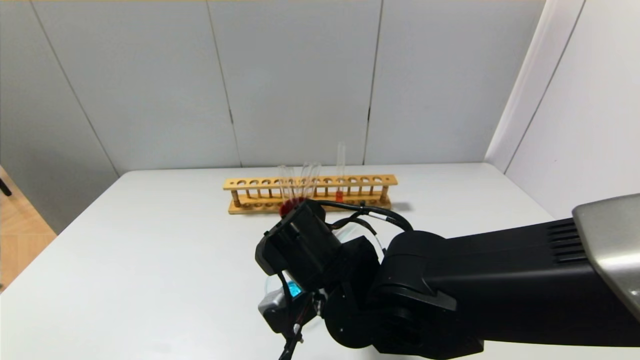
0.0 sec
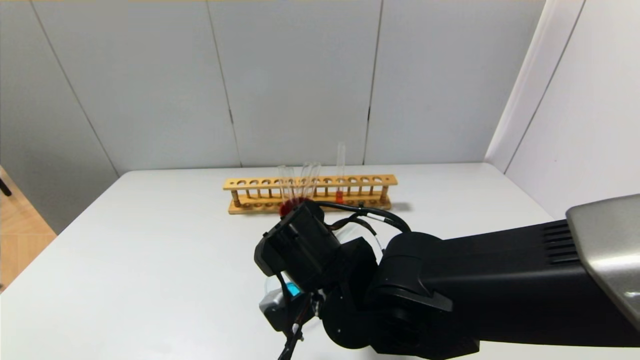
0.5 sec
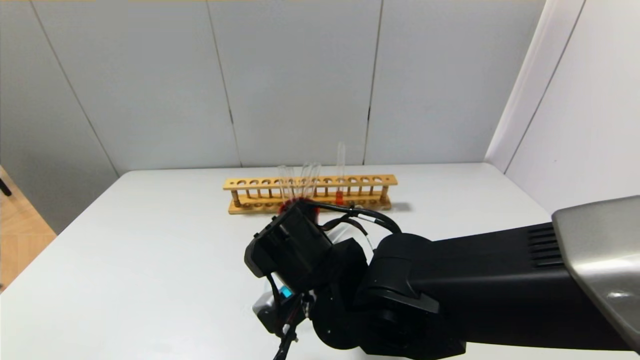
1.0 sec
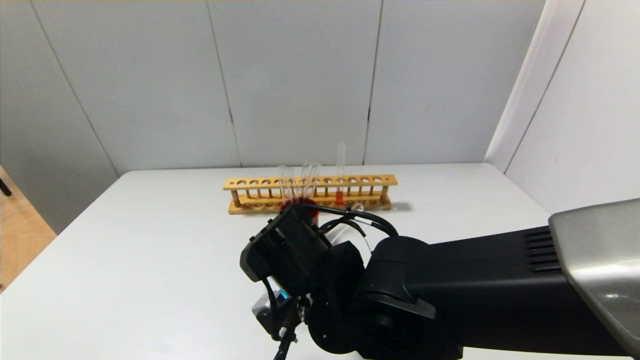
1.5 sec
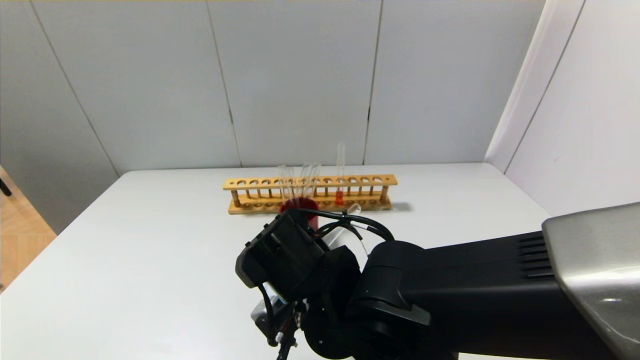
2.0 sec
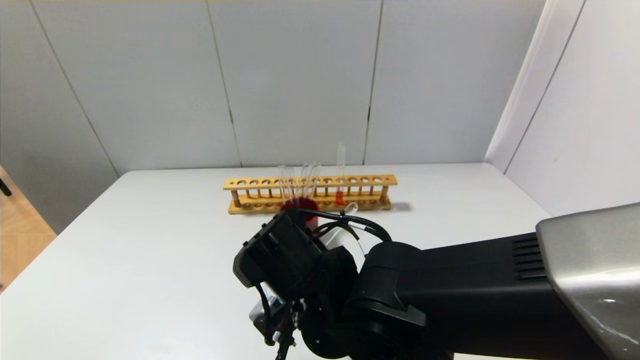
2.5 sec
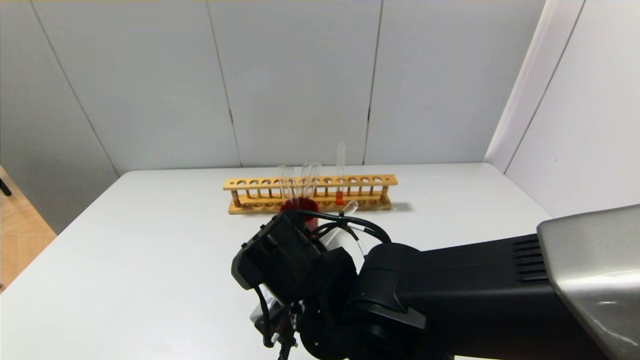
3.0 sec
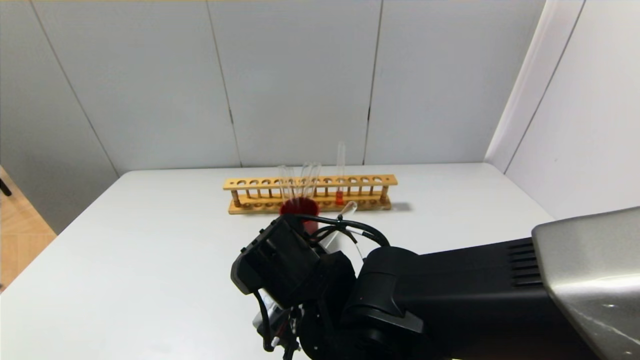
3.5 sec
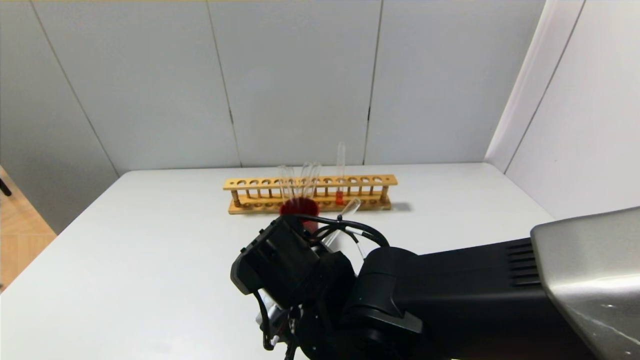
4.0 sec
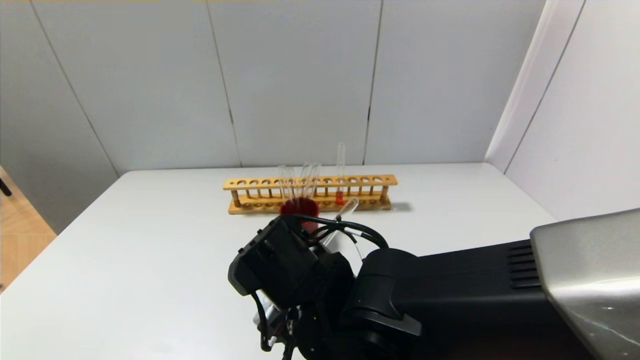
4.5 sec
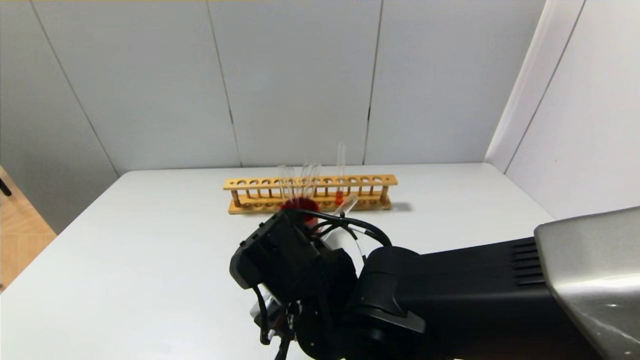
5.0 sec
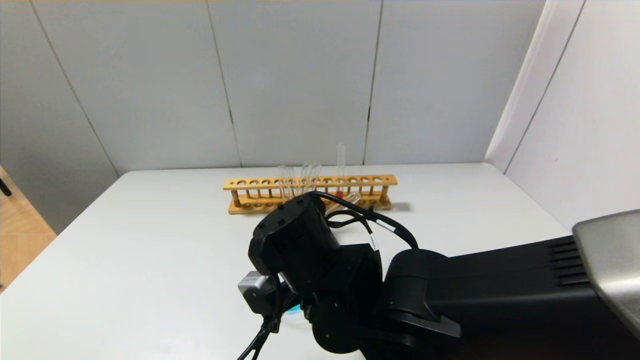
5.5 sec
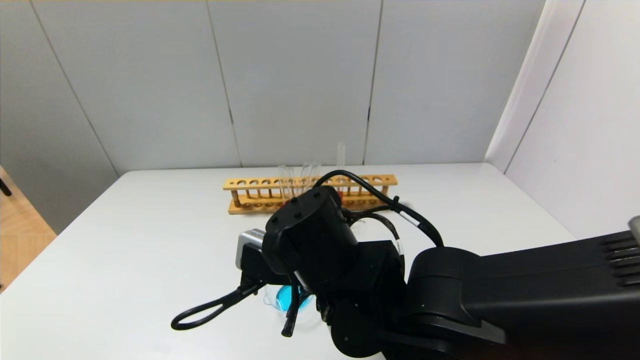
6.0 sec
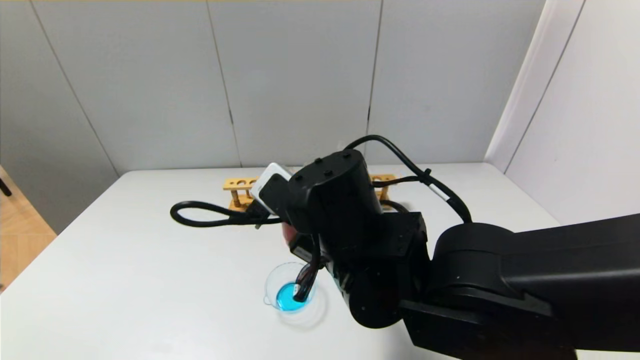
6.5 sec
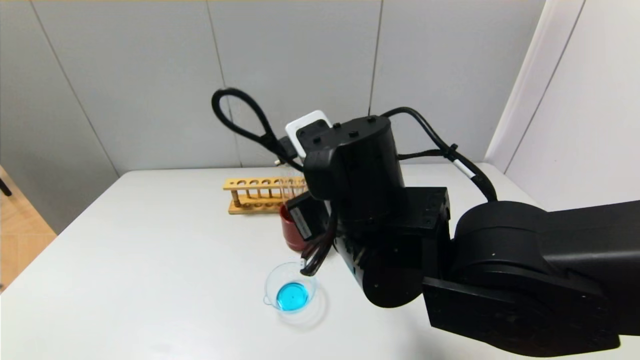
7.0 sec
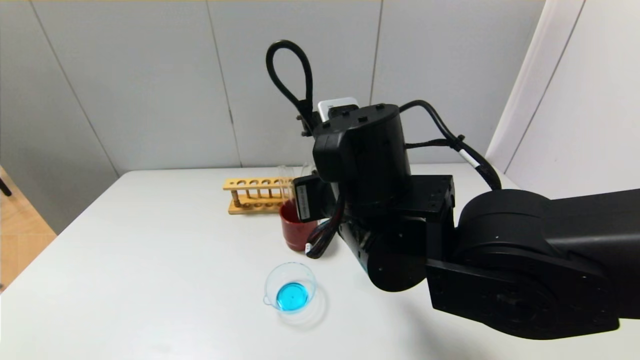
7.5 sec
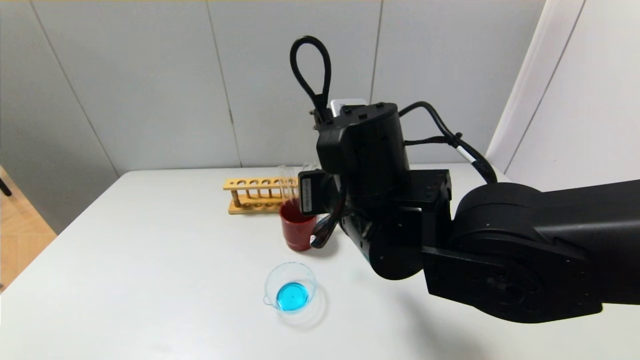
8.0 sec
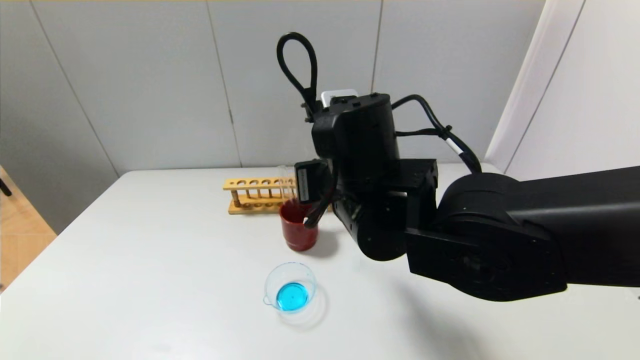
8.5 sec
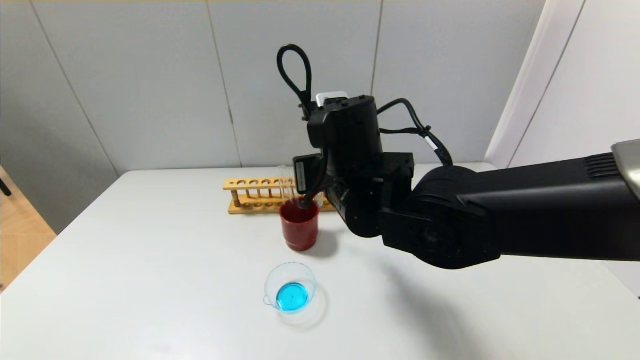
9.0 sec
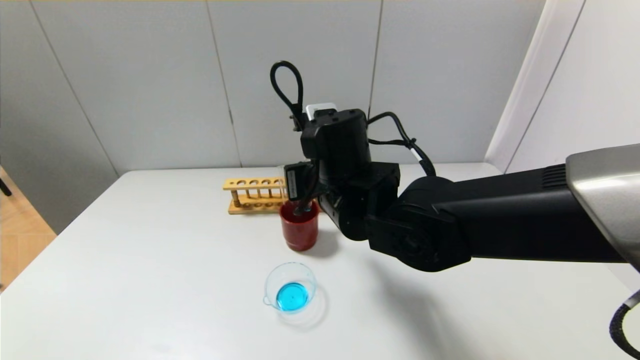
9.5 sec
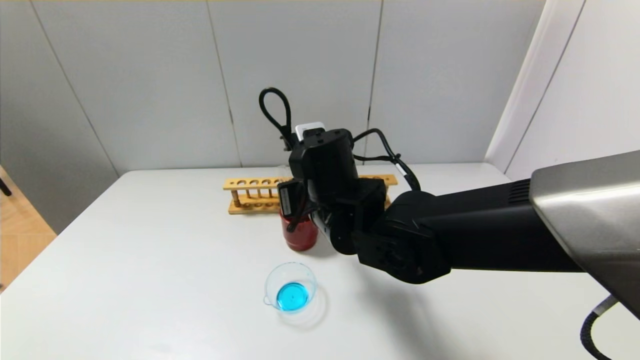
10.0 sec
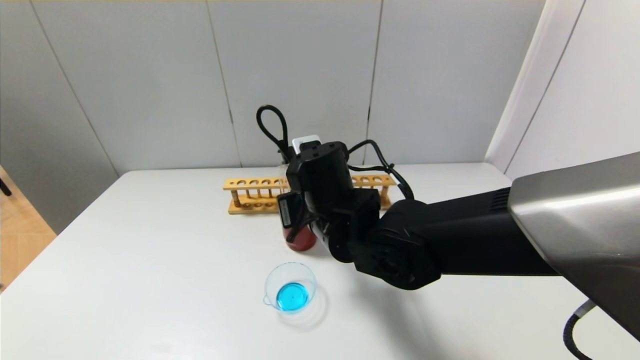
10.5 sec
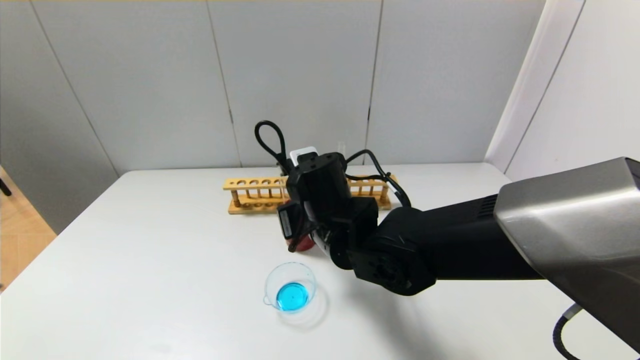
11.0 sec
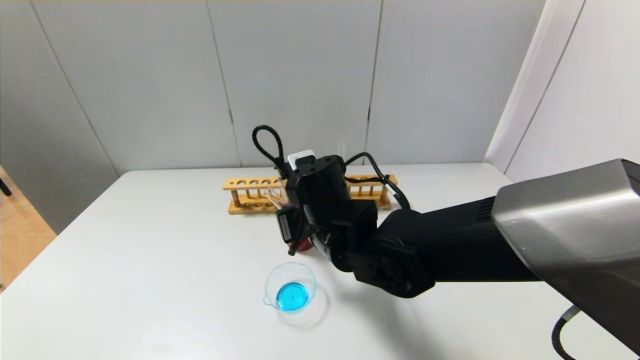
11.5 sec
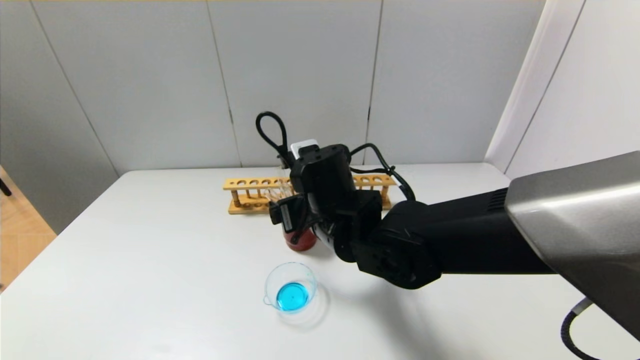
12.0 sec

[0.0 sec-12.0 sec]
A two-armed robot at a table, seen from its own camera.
Step, 0.0 sec to 5.5 sec: Pour the blue reagent into the graduated cylinder with the right gripper.
Step, 6.0 sec to 11.5 sec: Place the test tube into the brown cup with the right gripper.
0.0 sec to 4.0 sec: There are only small adjustments of the grippers.
6.0 sec to 8.0 sec: The right gripper goes about 5 cm upward.
8.0 sec to 10.0 sec: The right gripper travels forward by approximately 5 cm.
10.0 sec to 12.0 sec: The right gripper opens its fingers.

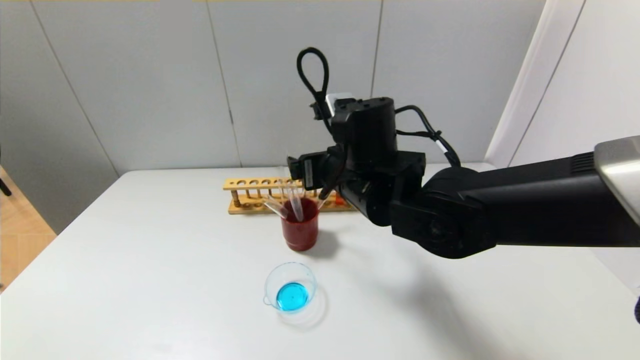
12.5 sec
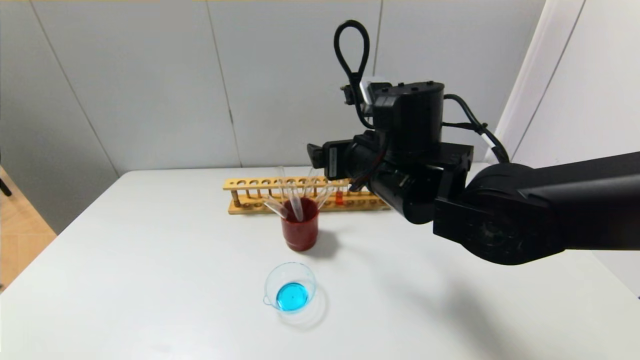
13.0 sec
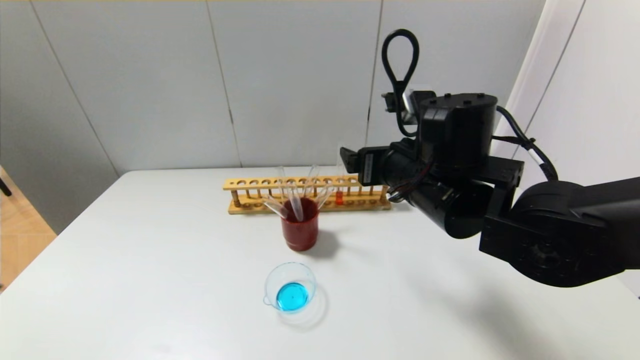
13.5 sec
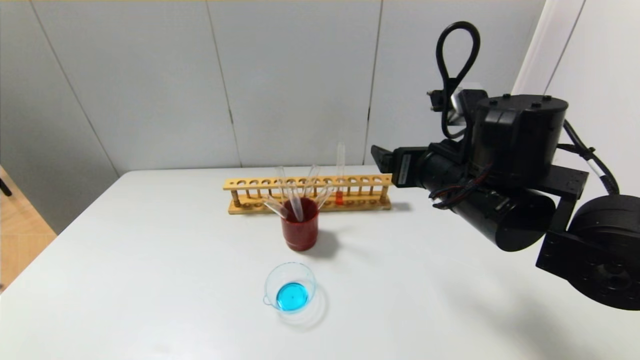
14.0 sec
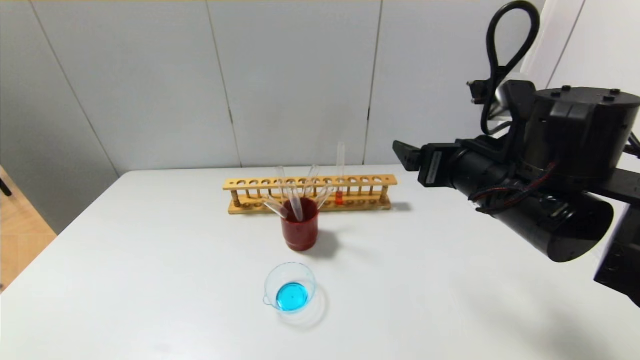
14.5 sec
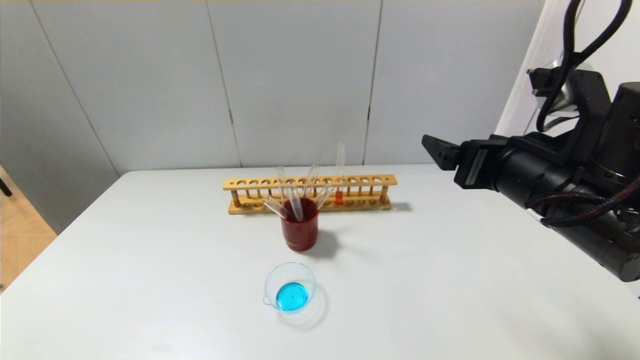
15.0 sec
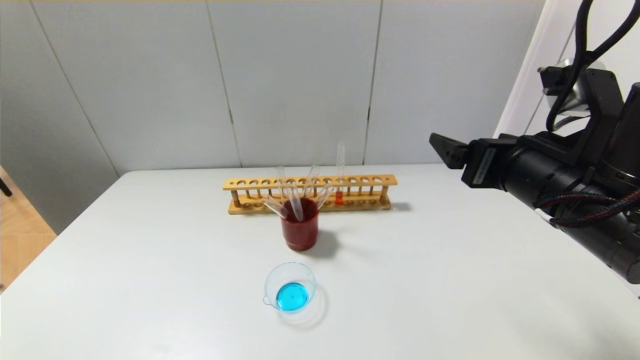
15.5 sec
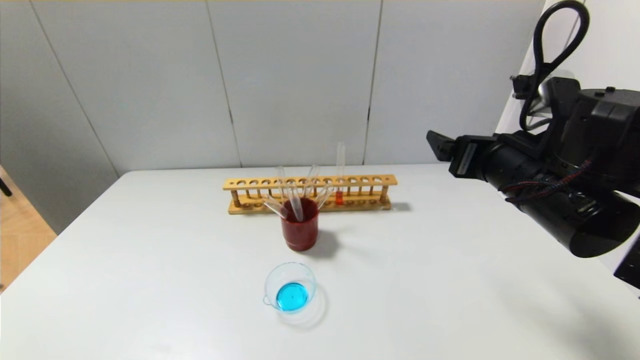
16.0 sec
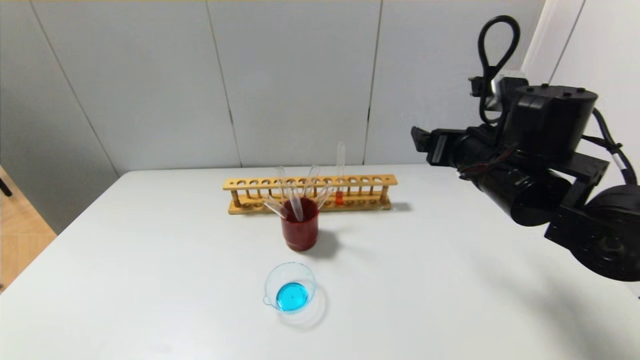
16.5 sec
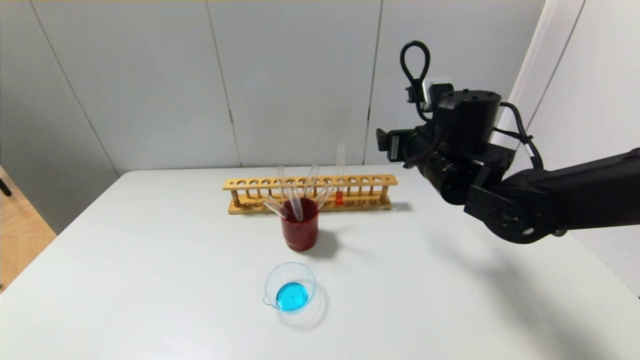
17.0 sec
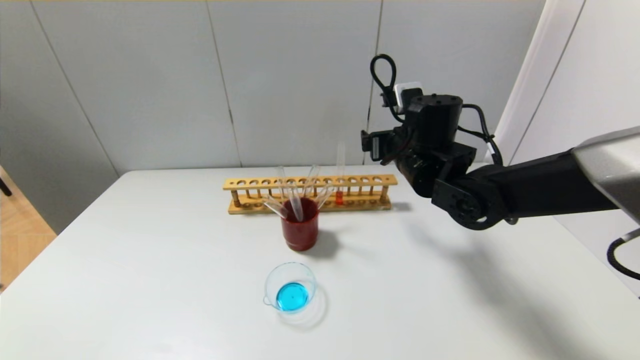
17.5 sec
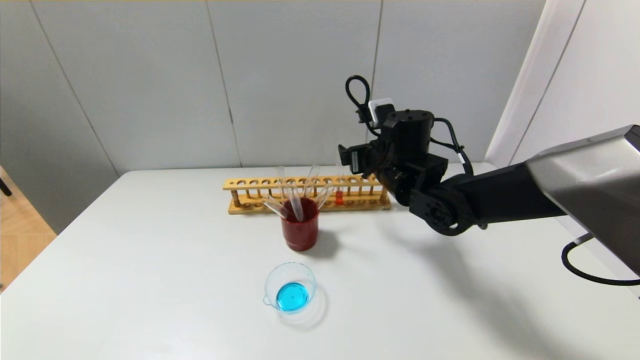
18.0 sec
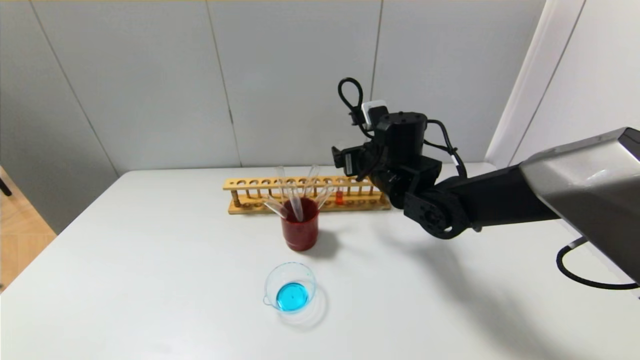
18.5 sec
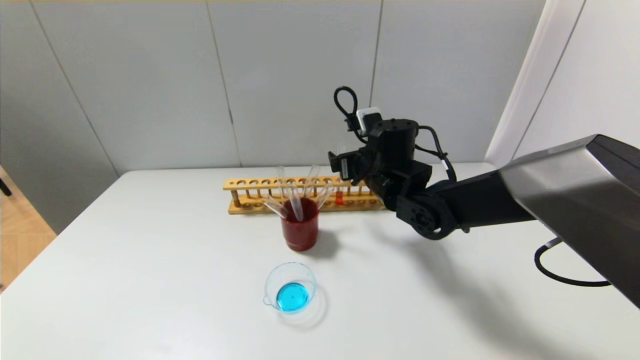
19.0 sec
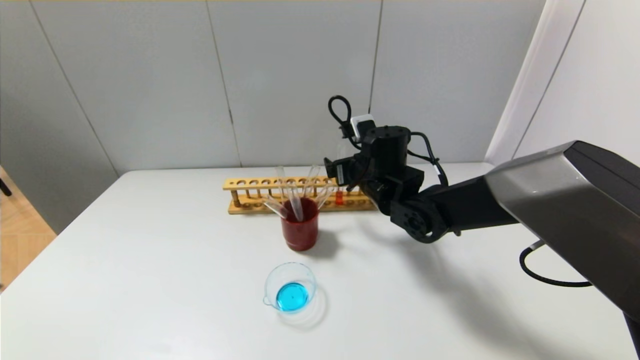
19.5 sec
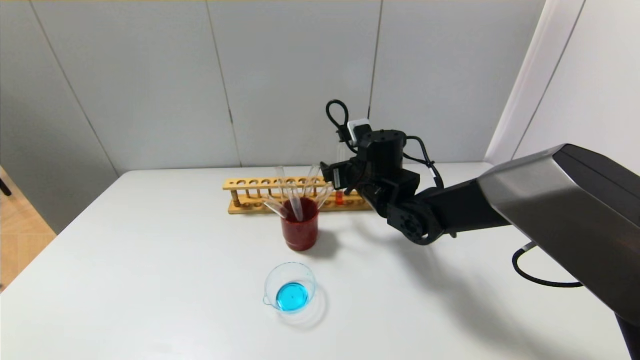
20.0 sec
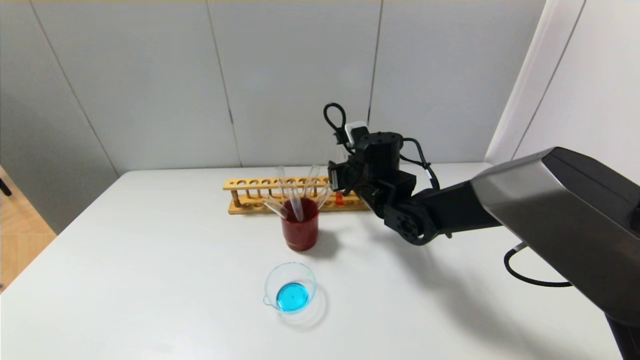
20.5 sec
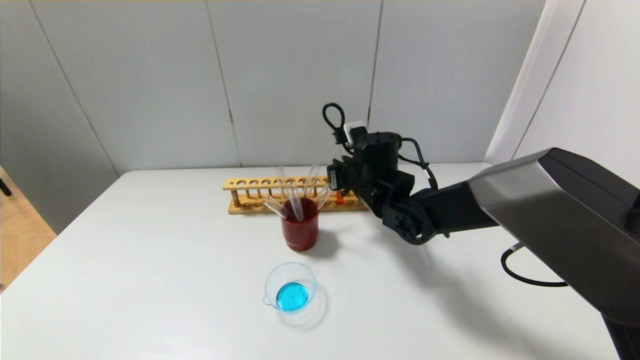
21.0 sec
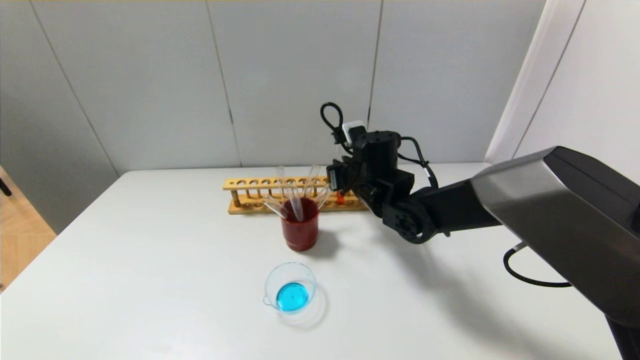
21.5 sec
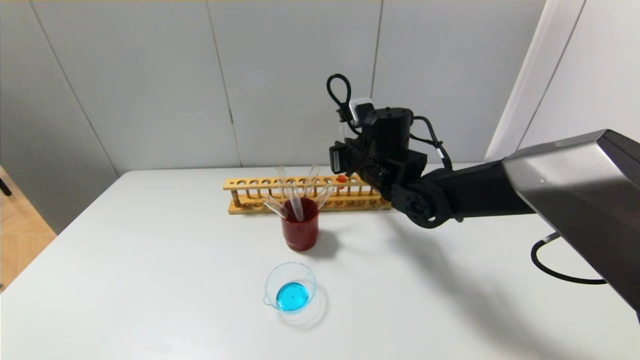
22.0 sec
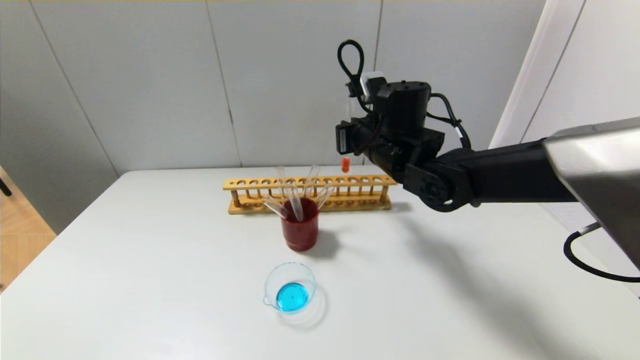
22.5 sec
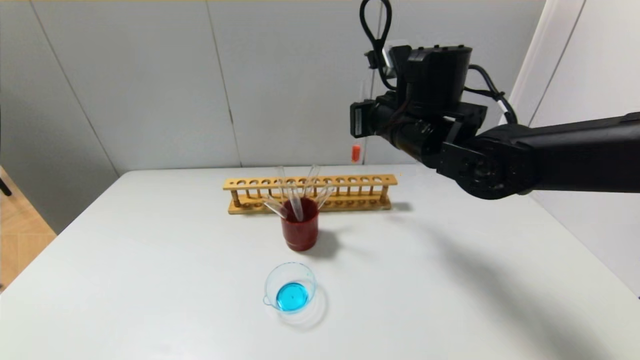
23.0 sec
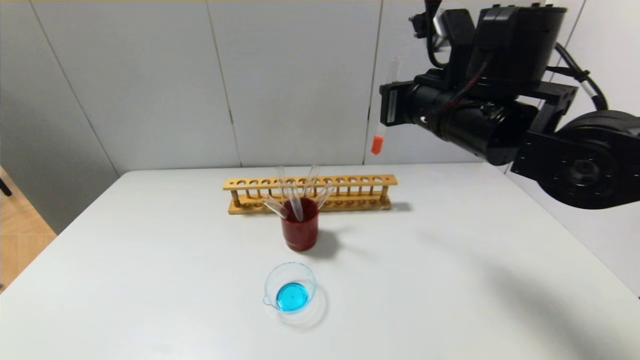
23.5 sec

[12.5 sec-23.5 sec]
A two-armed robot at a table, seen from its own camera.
Step, 12.5 sec to 21.0 sec: Grasp the red reagent with the right gripper.
12.5 sec to 14.5 sec: The right gripper moves to the right and backward, about 15 cm.
14.5 sec to 16.0 sec: The grippers make only small movements.
16.0 sec to 18.0 sec: The right gripper travels forward, to the left and downward by some 20 cm.
18.0 sec to 20.0 sec: The grippers make only small movements.
20.0 sec to 21.5 sec: The right gripper closes up.
21.5 sec to 23.5 sec: The right gripper is displaced upward, backward and to the right by approximately 20 cm.
